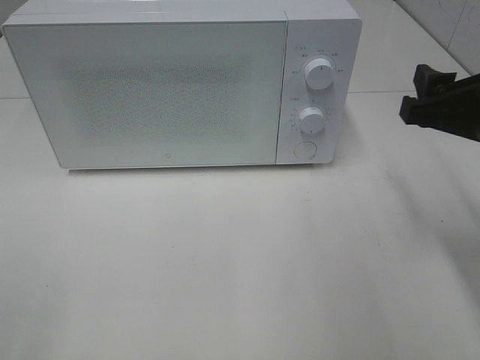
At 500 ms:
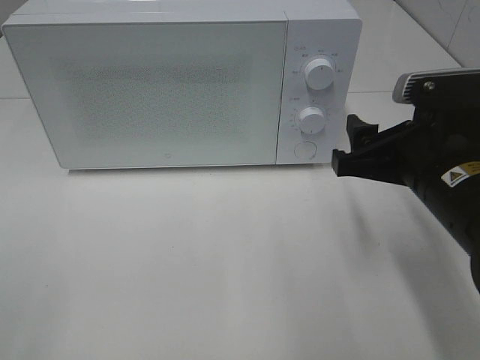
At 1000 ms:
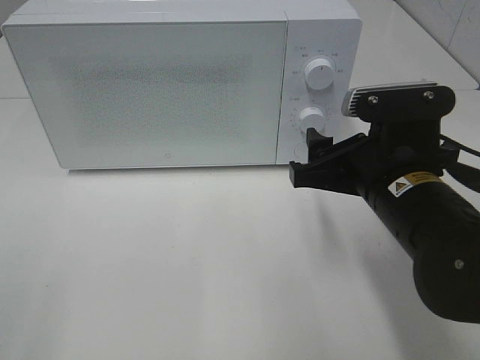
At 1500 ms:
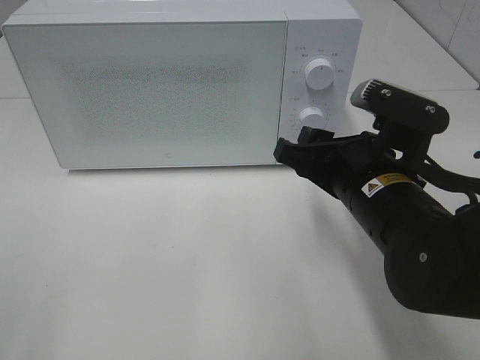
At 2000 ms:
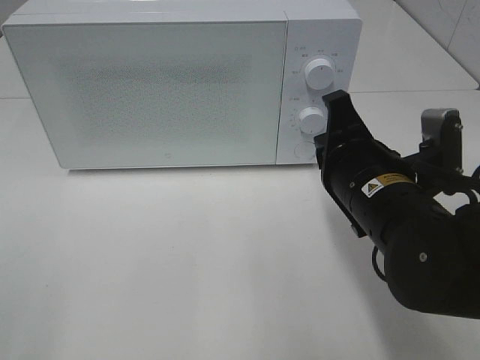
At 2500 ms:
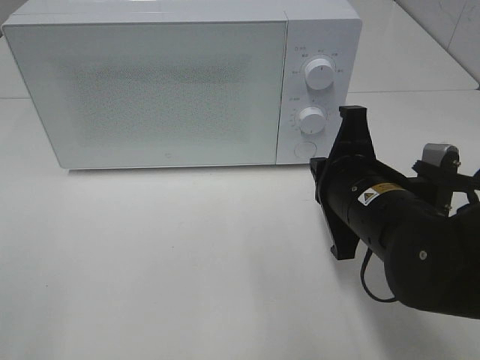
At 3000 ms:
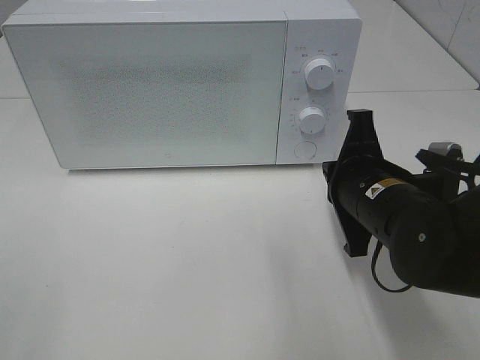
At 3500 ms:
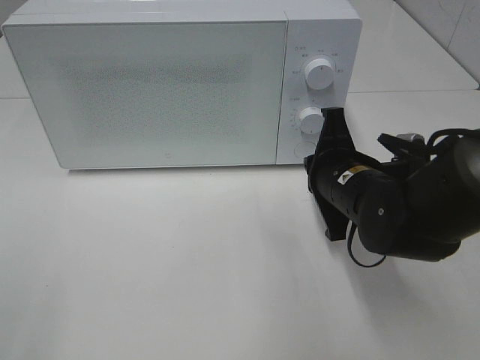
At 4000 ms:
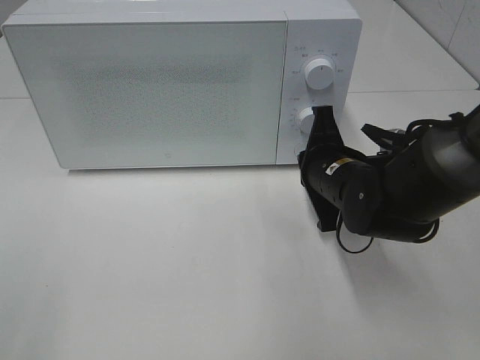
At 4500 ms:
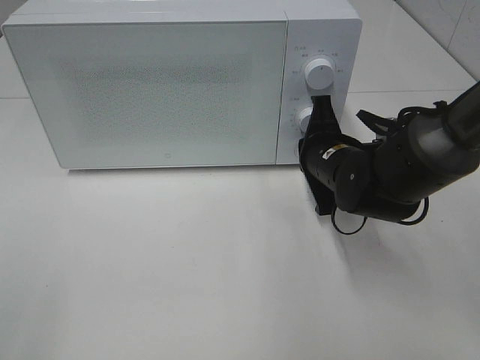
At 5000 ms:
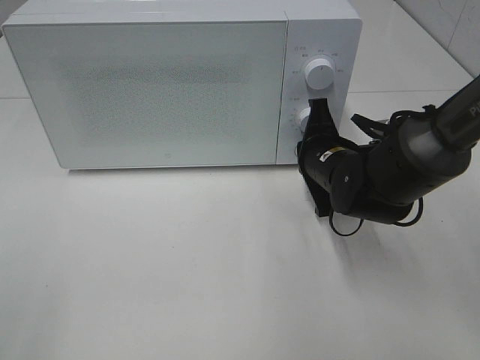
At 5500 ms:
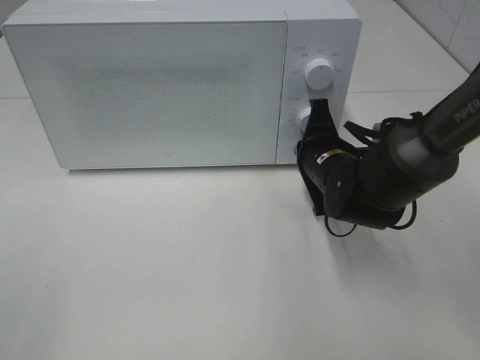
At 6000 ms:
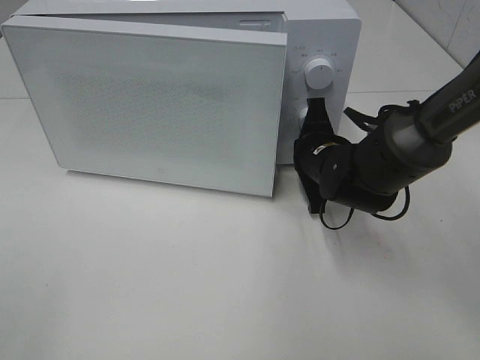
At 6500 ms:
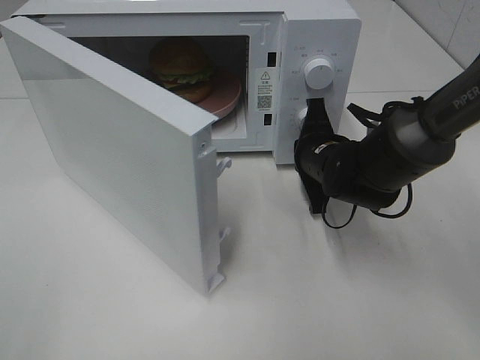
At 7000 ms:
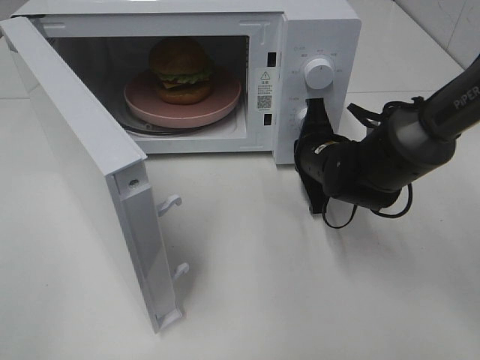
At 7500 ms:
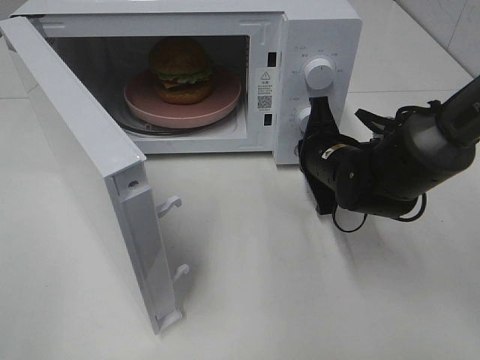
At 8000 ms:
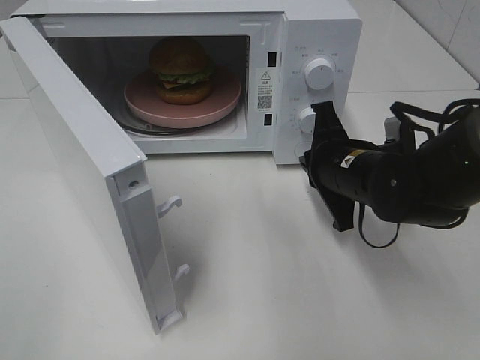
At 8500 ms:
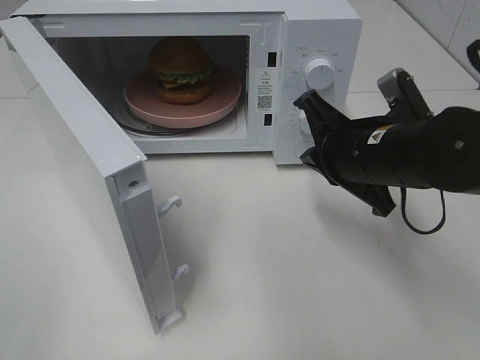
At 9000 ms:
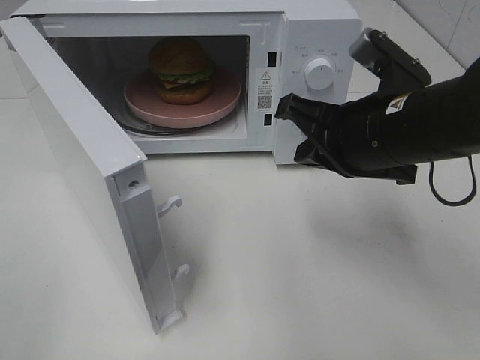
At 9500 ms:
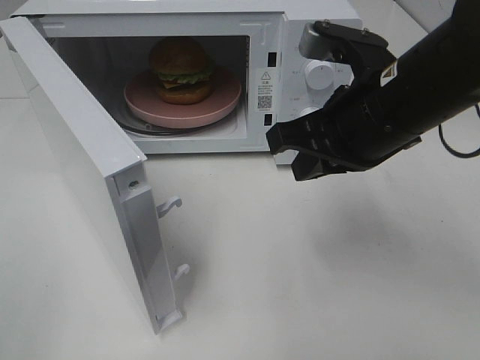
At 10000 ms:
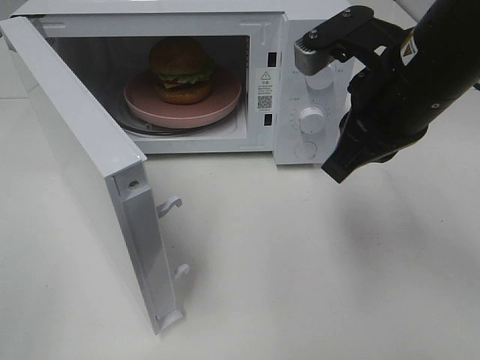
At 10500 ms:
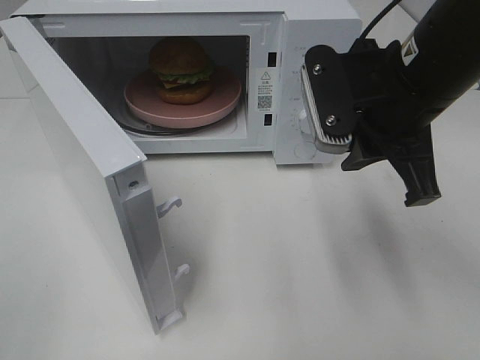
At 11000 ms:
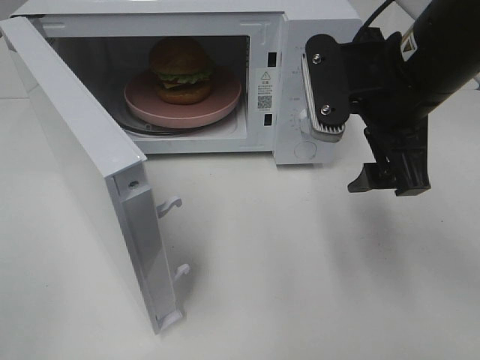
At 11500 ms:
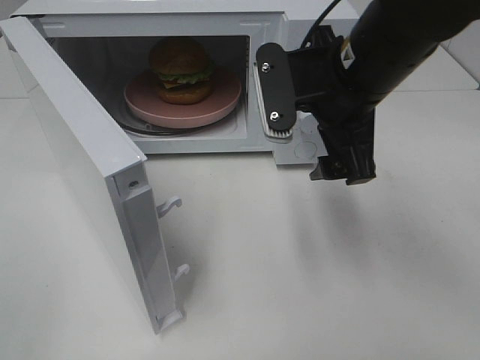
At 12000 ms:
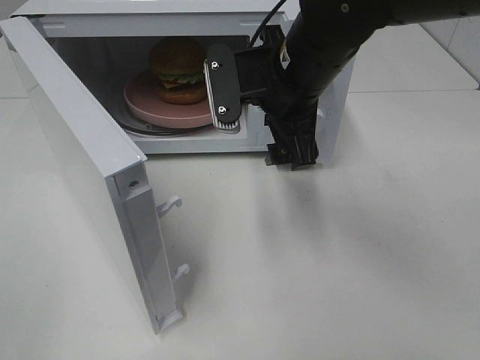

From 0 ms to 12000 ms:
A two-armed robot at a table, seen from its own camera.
Task of the whole recording: Heat the burger.
Step, from 0 ms to 7500 ms: Right hand: press the switch.
From 0 ms to 2000 ms: The right gripper heads to the left and downward, covering approximately 10 cm, and closes its fingers.
From 2000 ms to 4000 ms: The right gripper goes about 10 cm forward and downward.
From 4000 ms to 6000 ms: The right gripper goes approximately 5 cm forward.
From 6000 ms to 8000 ms: The right gripper shifts roughly 5 cm backward.
From 8000 ms to 10000 ms: The right gripper is displaced upward by about 15 cm.
From 10000 ms to 12000 ms: The right gripper moves to the left and forward, some 10 cm, and opens.

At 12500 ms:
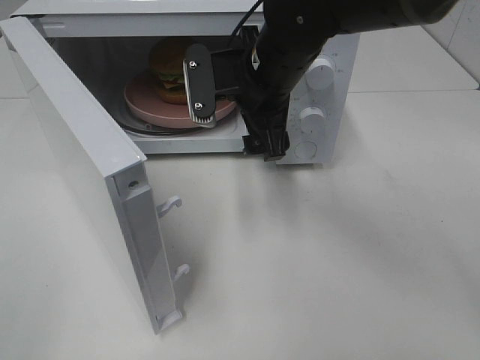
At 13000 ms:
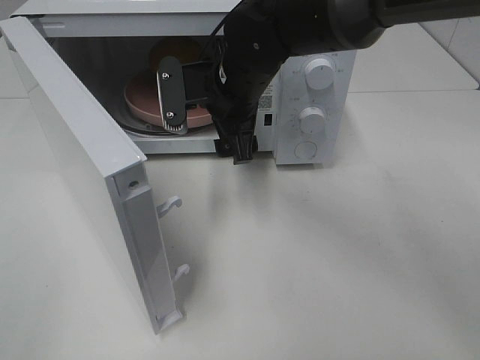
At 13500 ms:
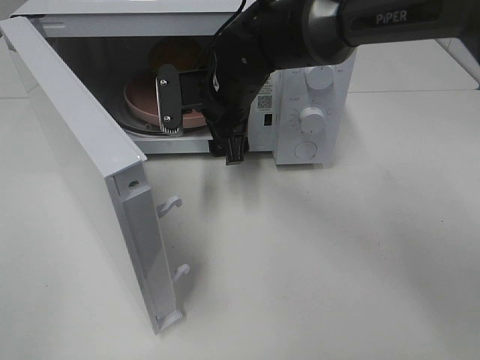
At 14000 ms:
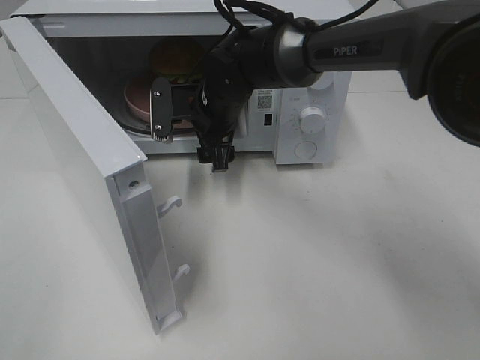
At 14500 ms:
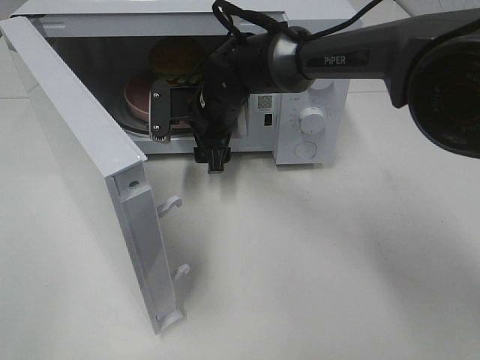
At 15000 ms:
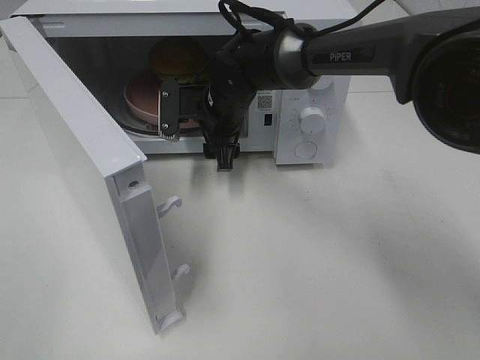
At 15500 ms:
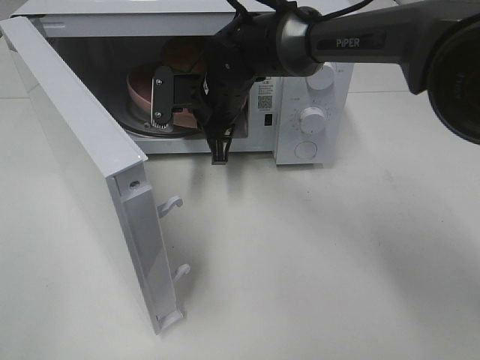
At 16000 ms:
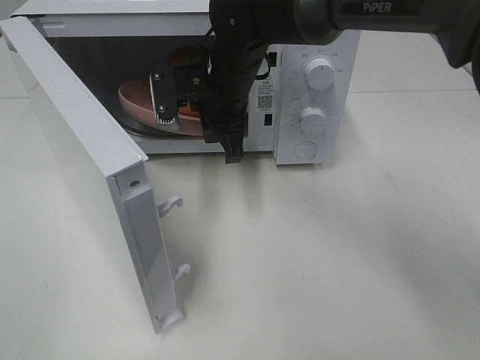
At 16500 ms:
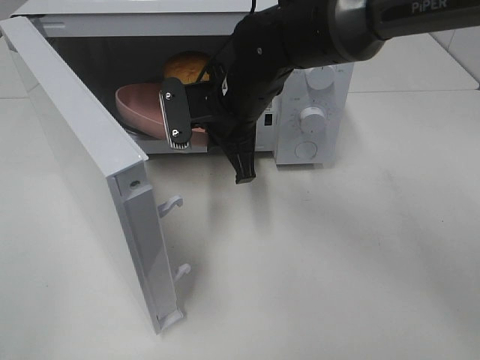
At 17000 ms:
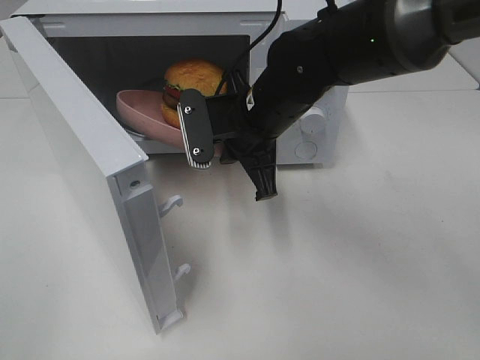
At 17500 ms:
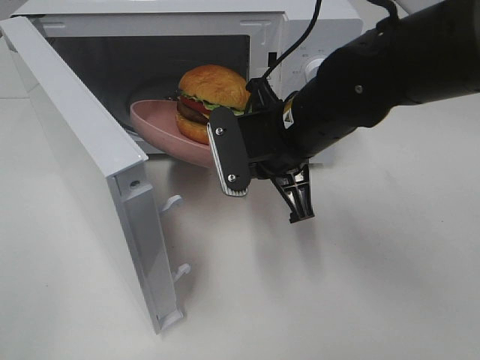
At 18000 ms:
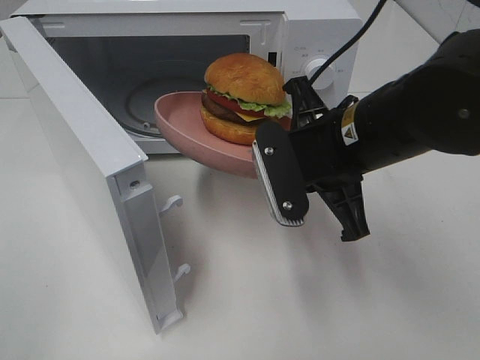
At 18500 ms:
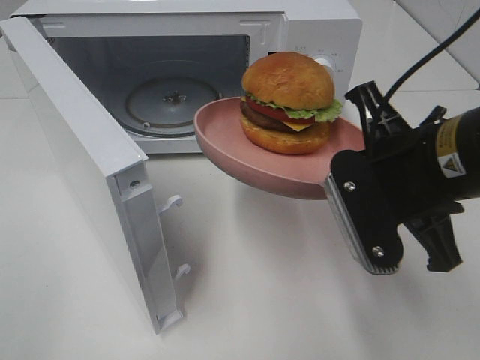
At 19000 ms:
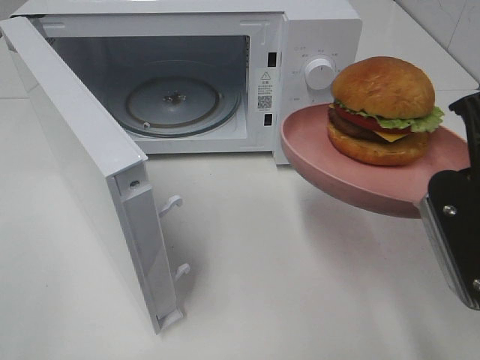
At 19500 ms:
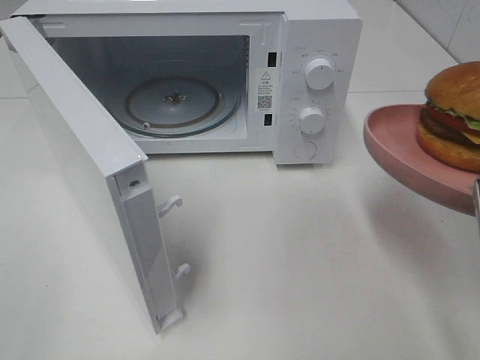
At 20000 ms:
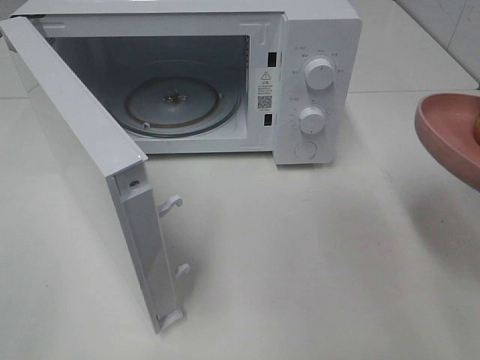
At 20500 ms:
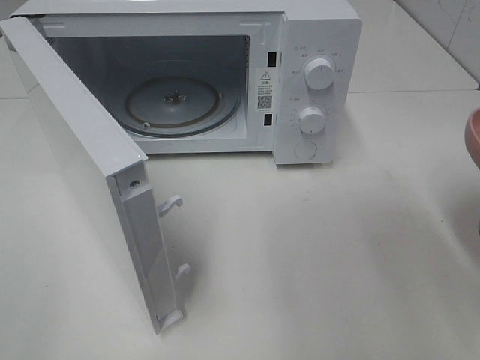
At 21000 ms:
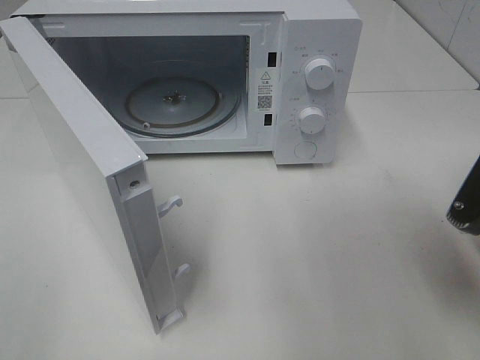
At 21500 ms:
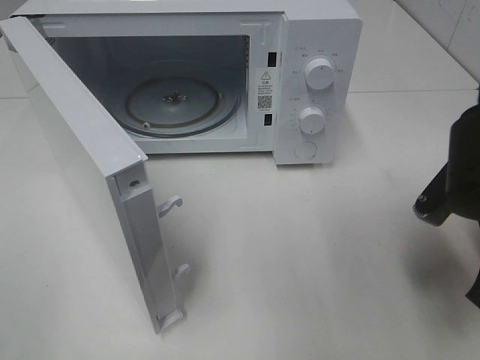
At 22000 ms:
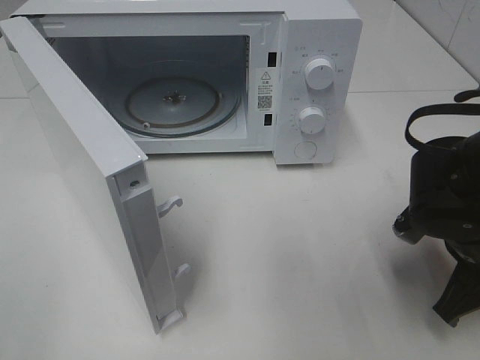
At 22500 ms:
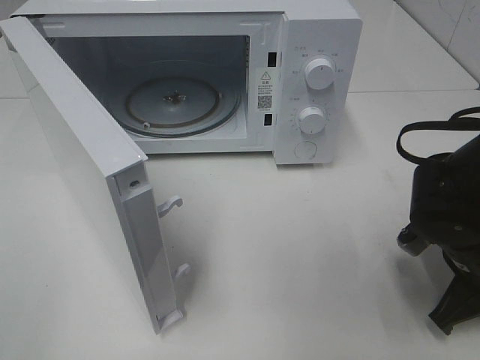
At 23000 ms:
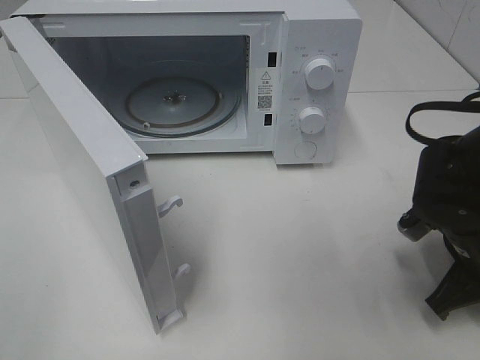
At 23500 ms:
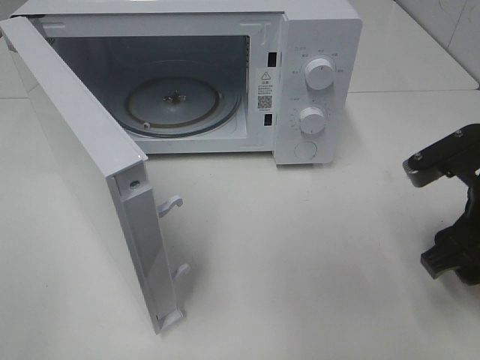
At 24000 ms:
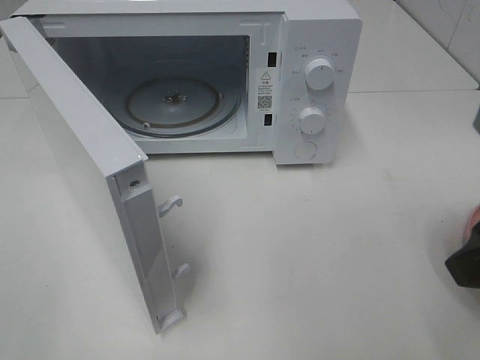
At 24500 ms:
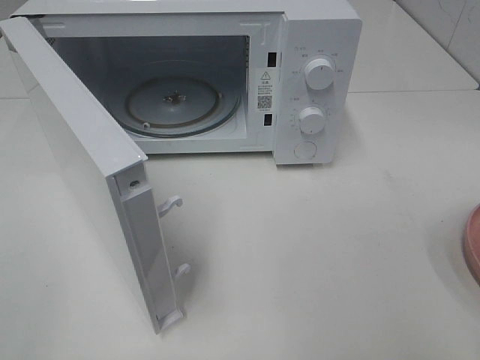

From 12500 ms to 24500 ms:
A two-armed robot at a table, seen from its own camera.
Task of the whole recording: Heat the burger.
Step, from 12500 ms to 15000 ms: Right hand: grab the plate with the hamburger.
Step, from 15500 ms to 22500 ms: Right hand: place the plate on the table.
From 12500 ms to 14500 ms: The right gripper is displaced downward, forward and to the left by approximately 15 cm.
From 14500 ms to 16500 ms: The right gripper travels backward by approximately 5 cm, and closes its fingers.
From 16500 ms to 18500 ms: The right gripper travels backward and to the right by some 25 cm.
From 18500 ms to 20500 ms: The right gripper travels to the right by about 10 cm.
From 20500 ms to 22500 ms: The right gripper travels downward and forward by roughly 15 cm.
From 22500 ms to 24500 ms: The right gripper shifts some 25 cm upward and backward, and opens.

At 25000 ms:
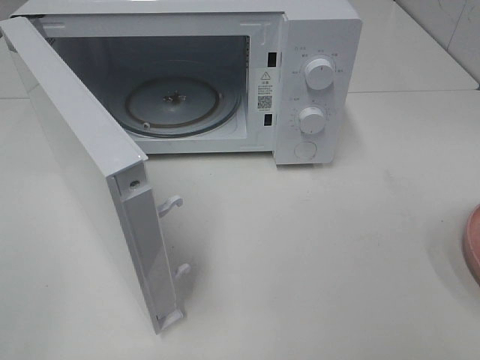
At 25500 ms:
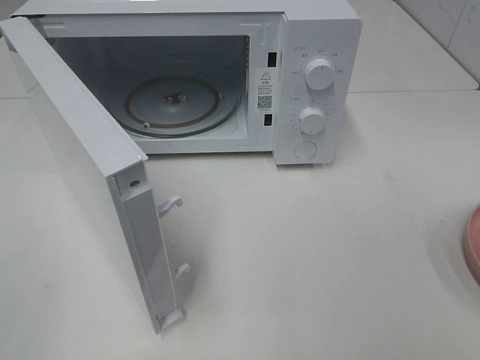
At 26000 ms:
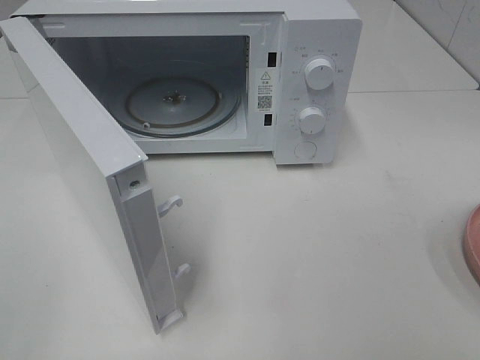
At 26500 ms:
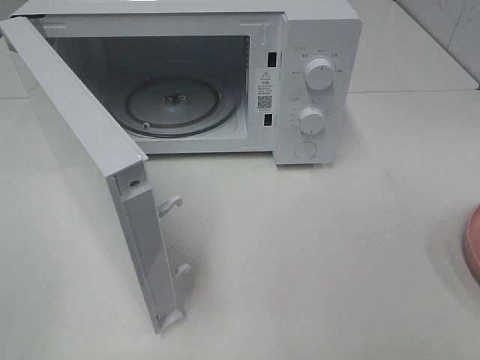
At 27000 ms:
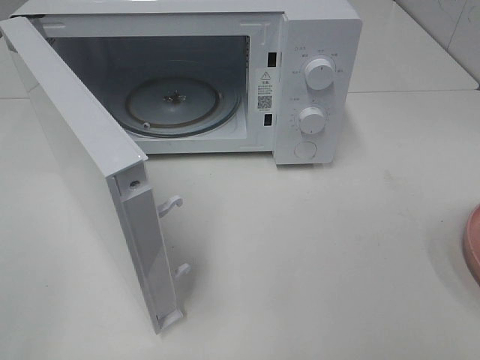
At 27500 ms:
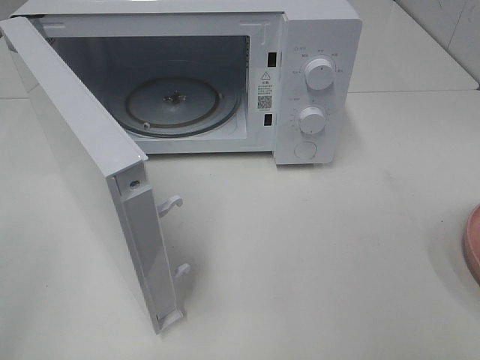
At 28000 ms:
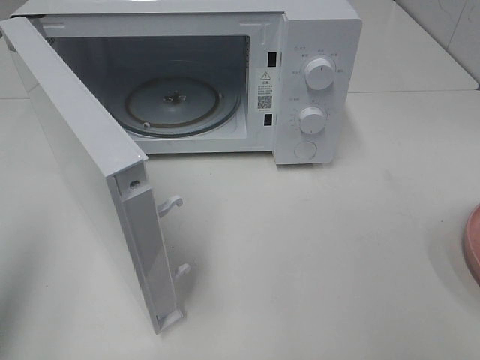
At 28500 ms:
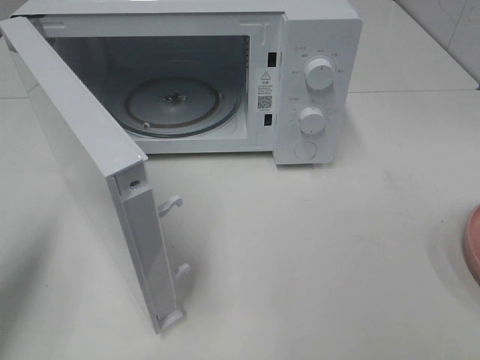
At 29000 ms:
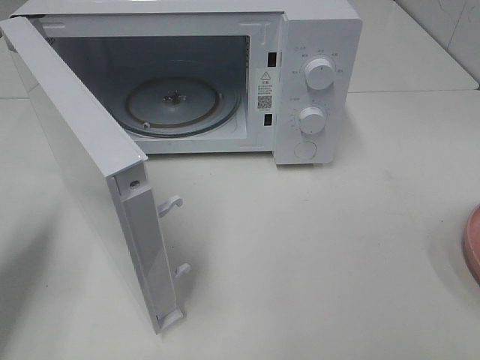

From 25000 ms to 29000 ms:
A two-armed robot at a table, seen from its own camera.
Task of the whole recording: Heat the burger.
From 25000 ms to 27000 ms: Both grippers stay about where they are.
From 27000 ms to 29000 ms: The left gripper shifts approximately 20 cm forward and downward, and closes its fingers.
